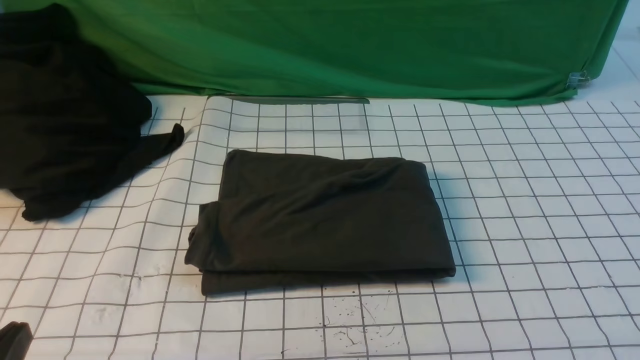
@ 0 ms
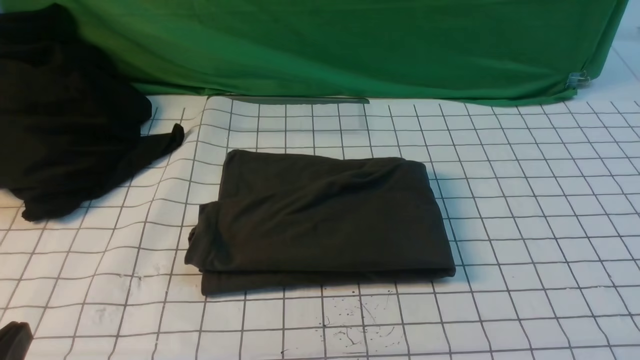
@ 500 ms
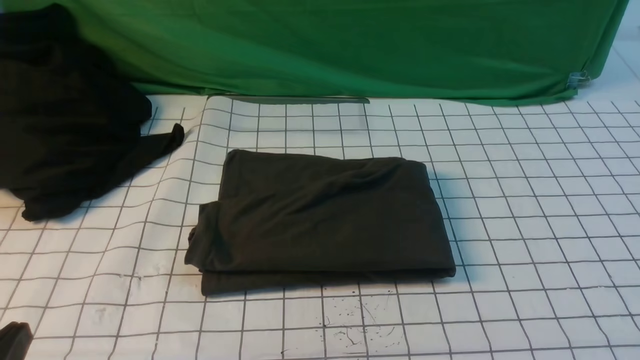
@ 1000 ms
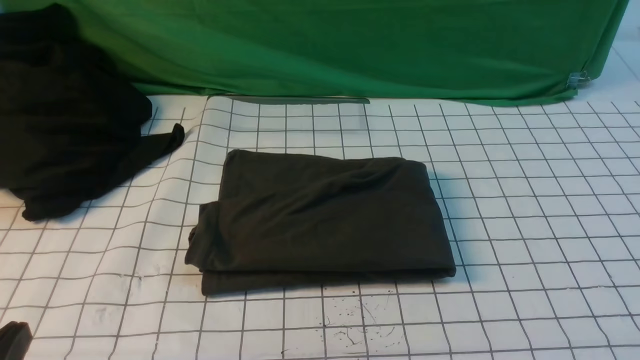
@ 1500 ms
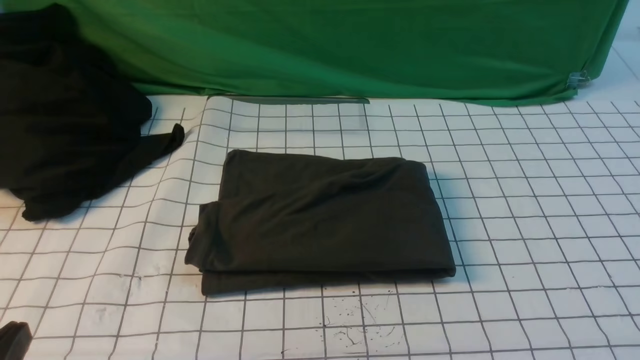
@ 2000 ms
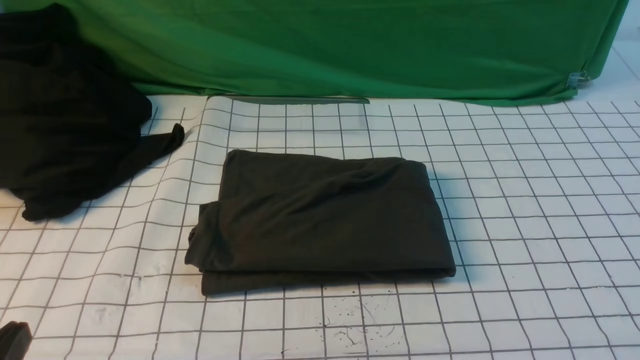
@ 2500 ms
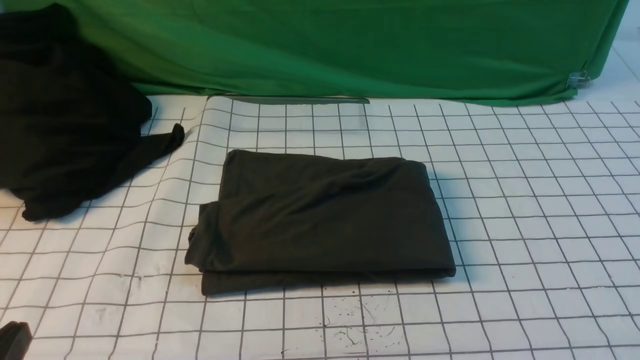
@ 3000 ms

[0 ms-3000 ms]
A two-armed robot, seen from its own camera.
1500 ms to 3000 ms: Both grippers stay about where they are.

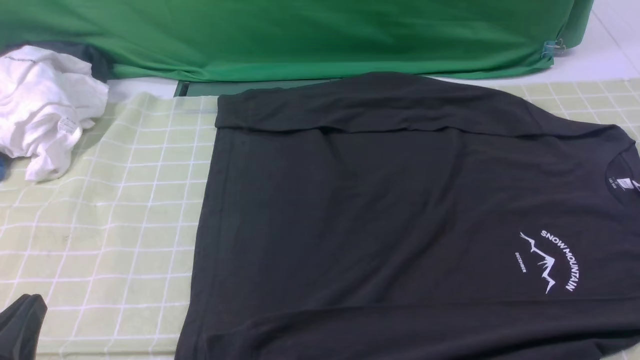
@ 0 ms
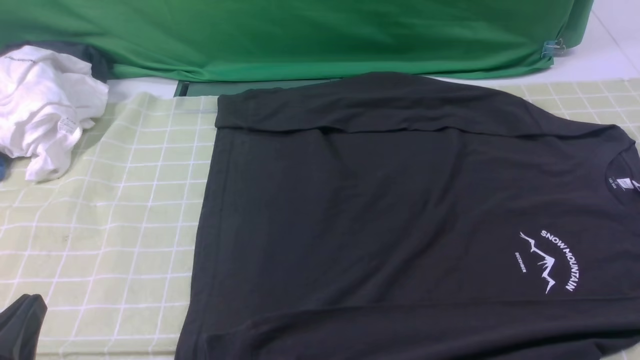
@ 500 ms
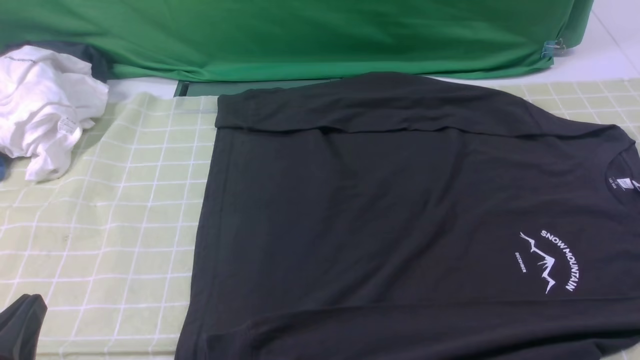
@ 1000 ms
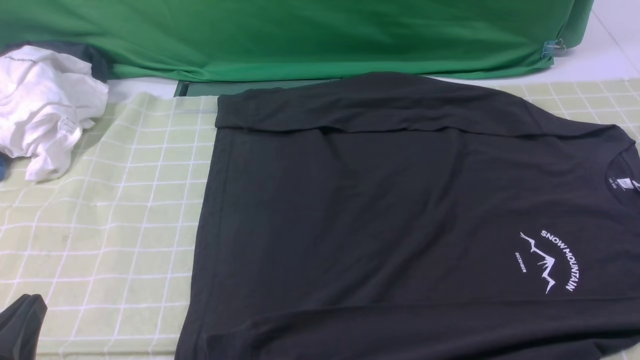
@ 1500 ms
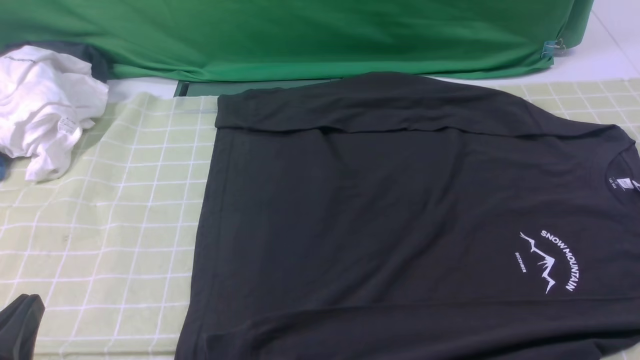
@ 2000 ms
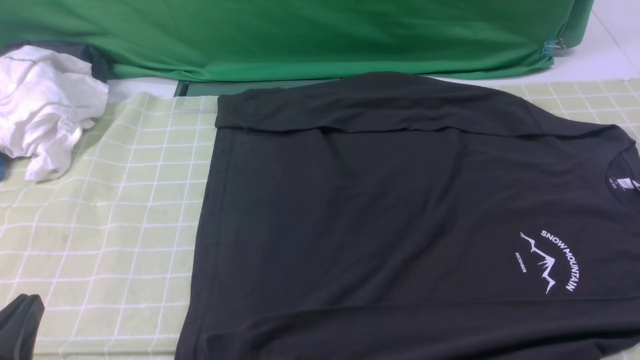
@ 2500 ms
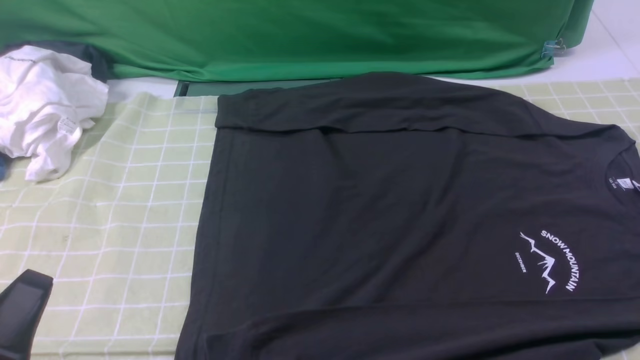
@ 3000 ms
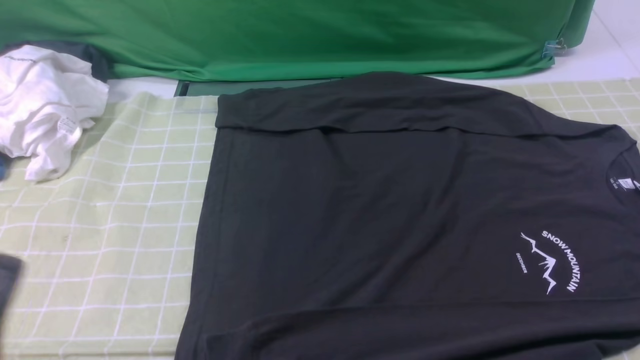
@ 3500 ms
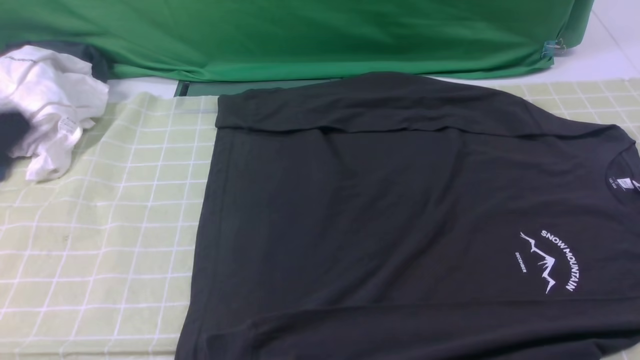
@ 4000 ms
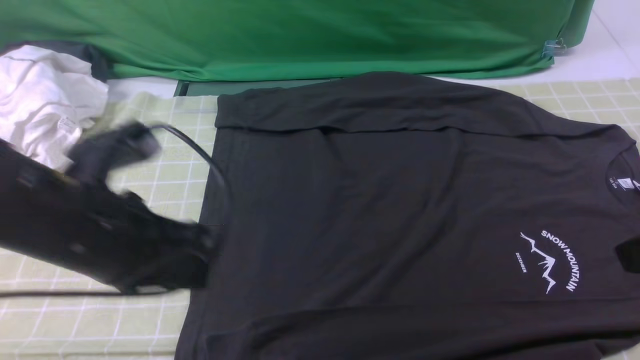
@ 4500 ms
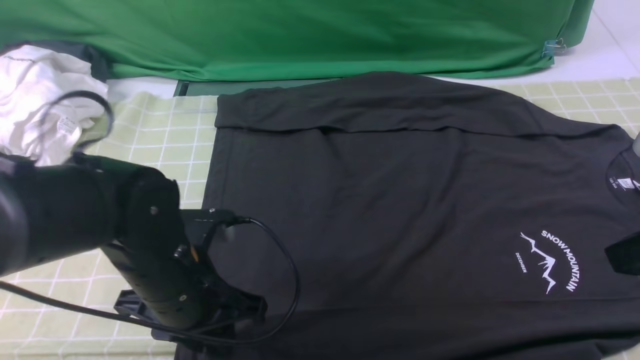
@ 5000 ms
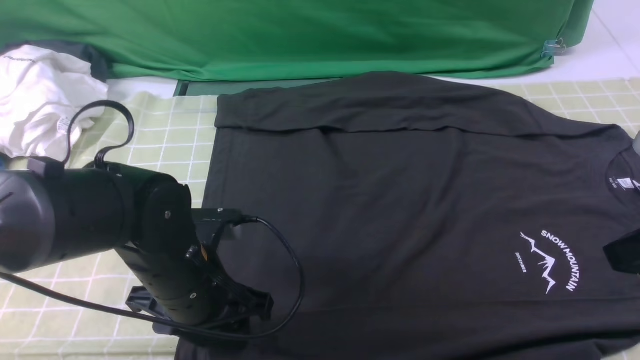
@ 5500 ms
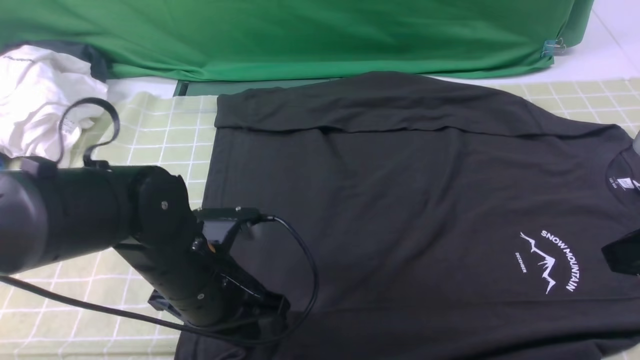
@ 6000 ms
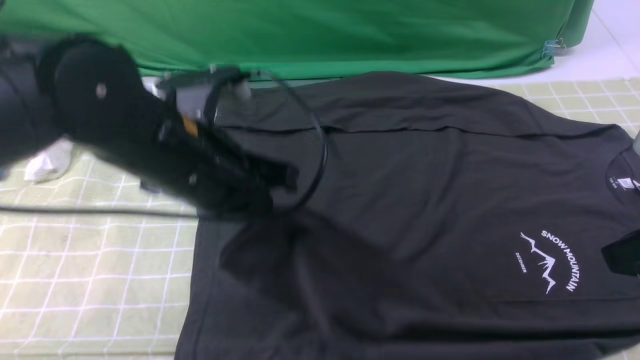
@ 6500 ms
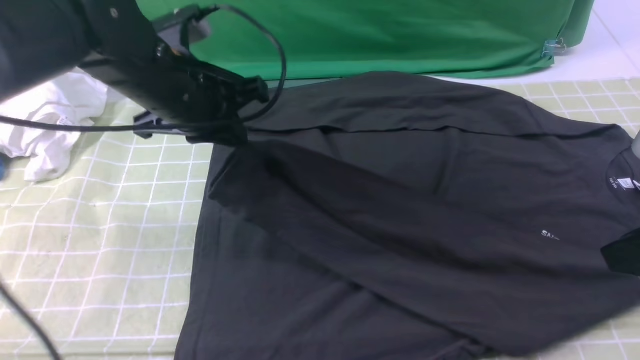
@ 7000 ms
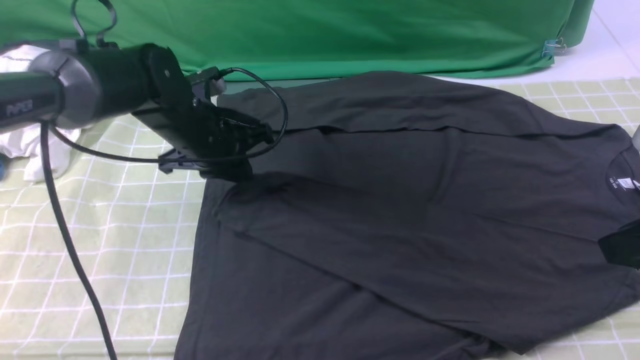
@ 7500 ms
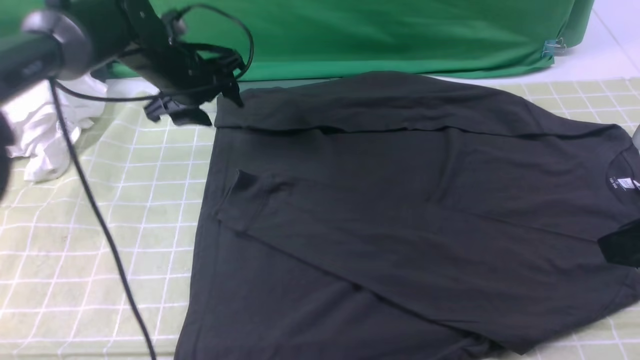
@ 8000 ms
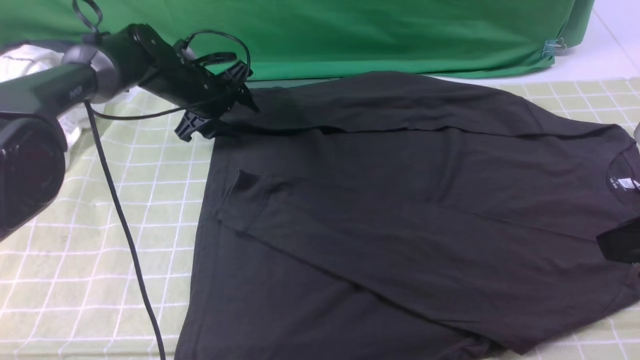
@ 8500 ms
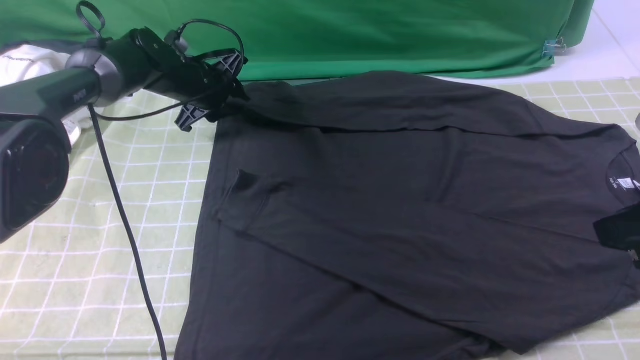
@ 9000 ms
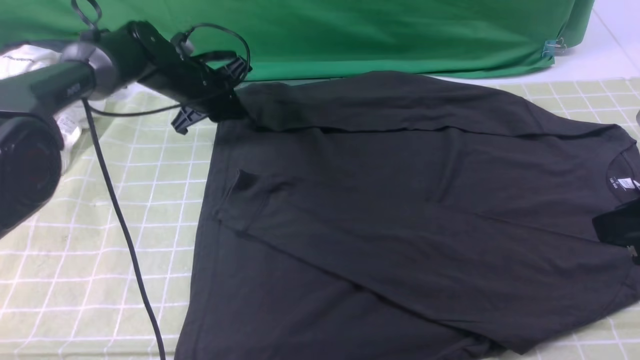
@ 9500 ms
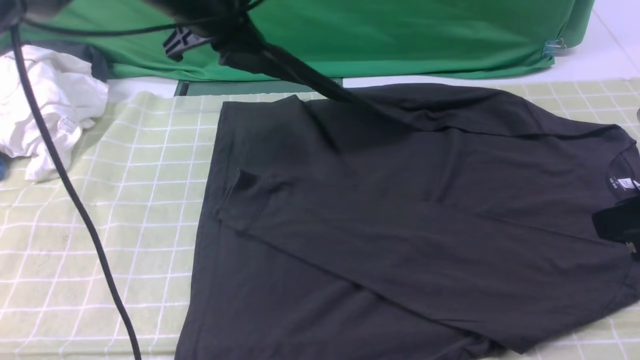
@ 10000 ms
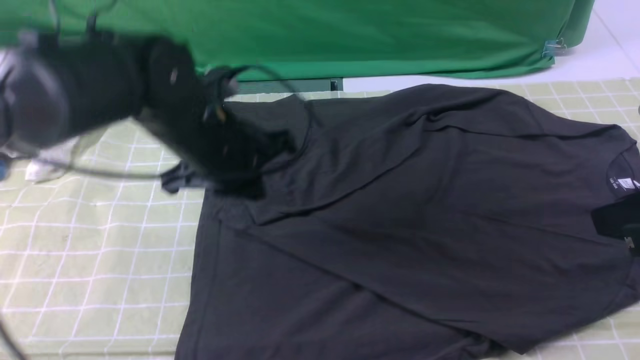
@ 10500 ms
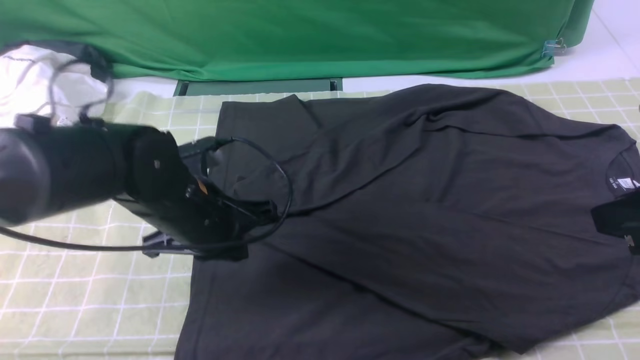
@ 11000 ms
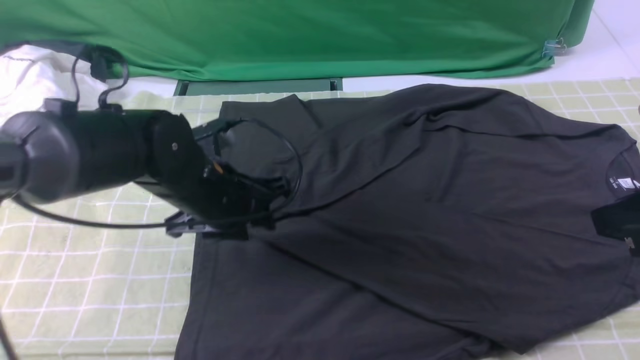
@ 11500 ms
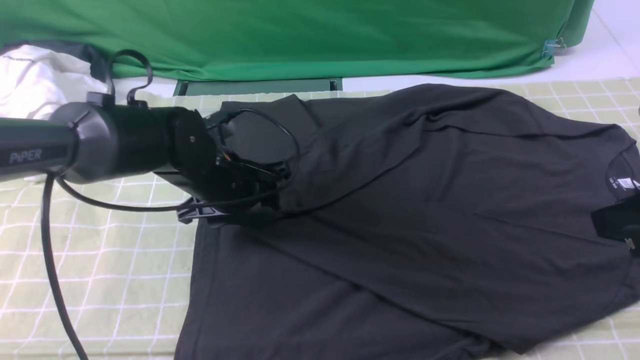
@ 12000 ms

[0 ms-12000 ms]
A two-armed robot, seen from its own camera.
Step, 0 ms to 5500 ms: use the left arm to clamp the cuff closest to it.
Step, 6000 ms to 7500 ms: use the left arm to drag and place the cuff at the centered position on the left edge of the fabric.
Step, 8000 ms to 9000 ms: use the left arm to clamp the cuff farthest from it.
0 ms to 2000 ms: The two grippers keep their place.
2000 ms to 4000 ms: The left gripper shifts roughly 20 cm upward and forward.
4000 ms to 6000 ms: The right gripper goes roughly 10 cm forward and downward, and opens. The left gripper moves downward, forward and to the right, about 25 cm, and opens, then closes once more.
6000 ms to 8000 ms: The left gripper shifts approximately 25 cm forward, and opens up.
8000 ms to 10000 ms: The left gripper moves upward and to the right, about 10 cm, and closes its fingers.
10000 ms to 12000 ms: The left gripper moves downward and backward, some 15 cm, and opens up.

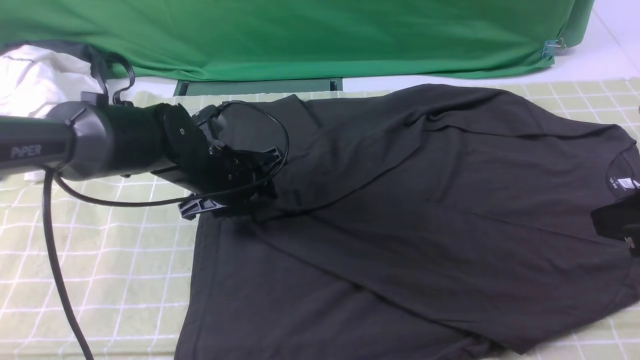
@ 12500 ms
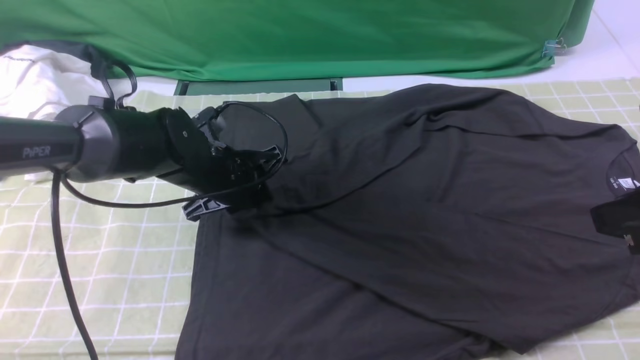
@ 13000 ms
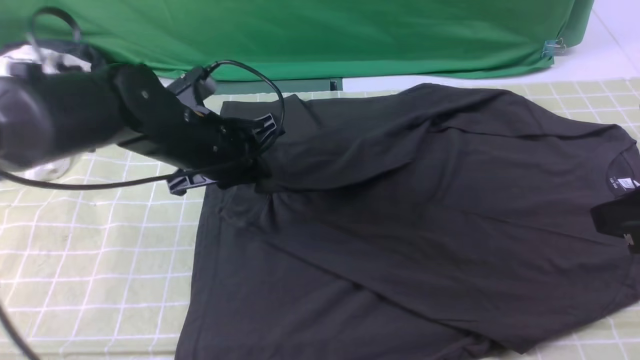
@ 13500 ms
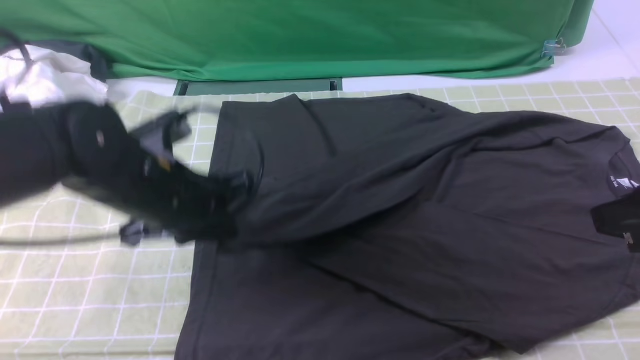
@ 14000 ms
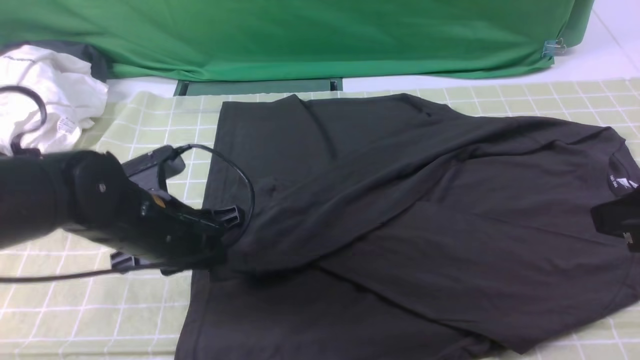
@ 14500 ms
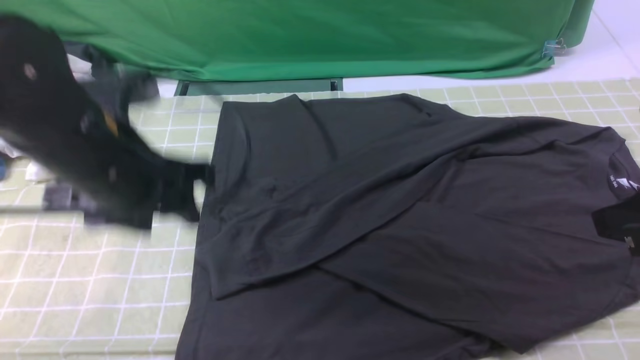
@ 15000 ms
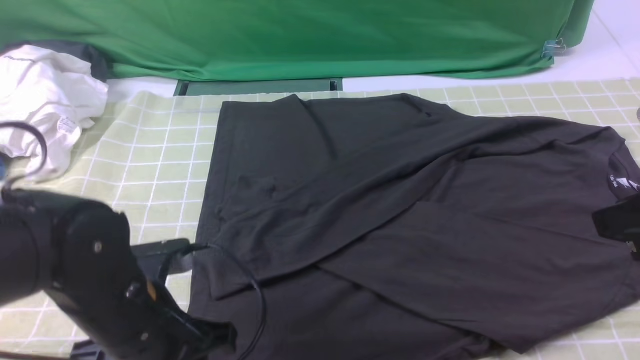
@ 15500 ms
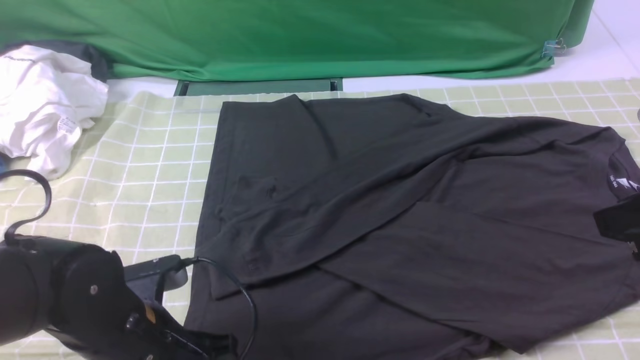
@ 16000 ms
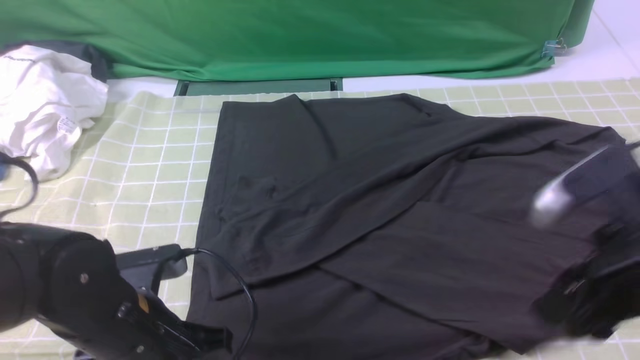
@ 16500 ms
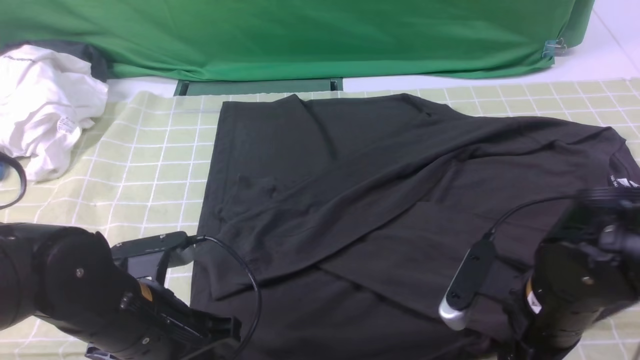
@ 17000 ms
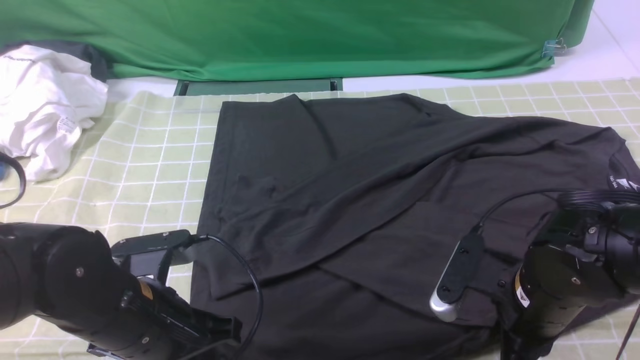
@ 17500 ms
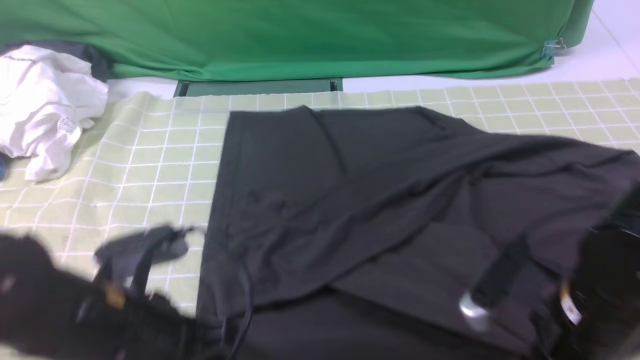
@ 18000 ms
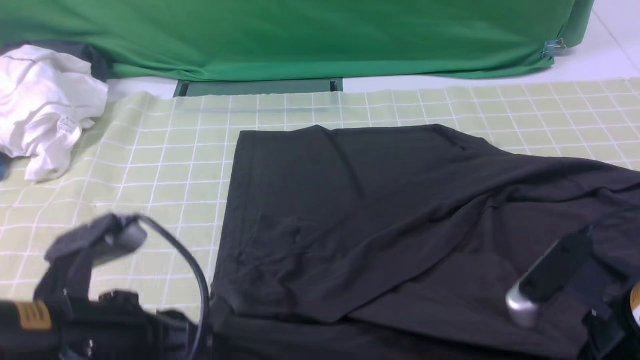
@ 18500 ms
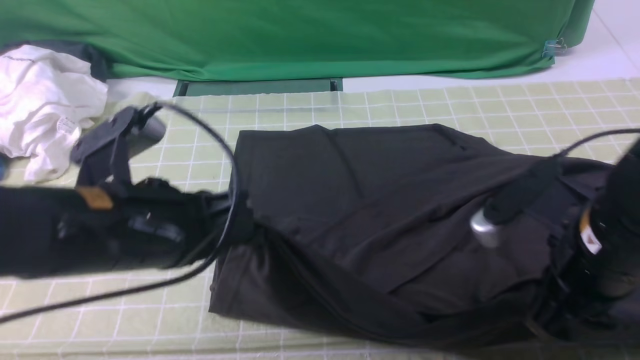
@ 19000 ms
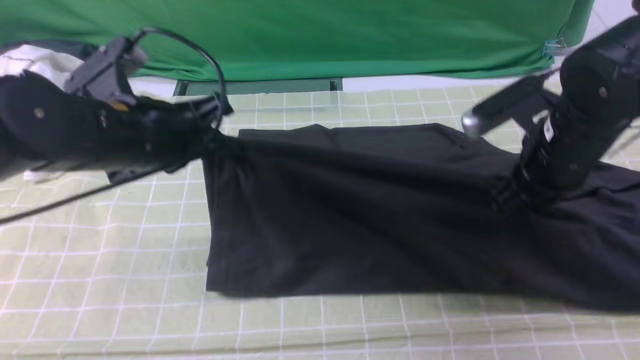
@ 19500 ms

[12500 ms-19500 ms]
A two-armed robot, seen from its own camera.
Step, 12500 ms to 14500 ms: use the left arm to drag and drop the cuff onto the cuff closest to the left arm.
Step, 15000 ms to 17500 ms: use both arms simultaneously to clamp the lower edge of the clothing fabric.
12500 ms to 14500 ms: The left gripper shifts approximately 10 cm backward and upward.
14500 ms to 16000 ms: The left gripper moves backward, about 10 cm.
16000 ms to 17500 ms: The left gripper closes its fingers; the right gripper shifts roughly 20 cm downward and to the left, and opens, then closes once more.
17500 ms to 19500 ms: The grippers both shift forward and upward by approximately 15 cm.
